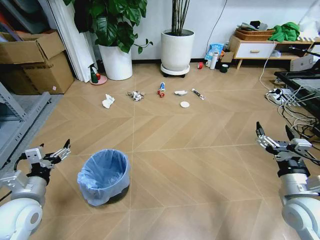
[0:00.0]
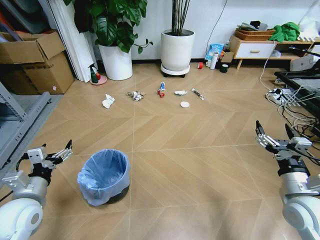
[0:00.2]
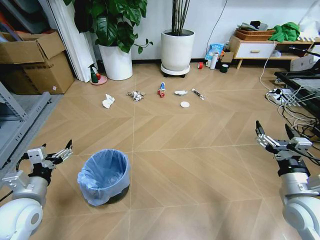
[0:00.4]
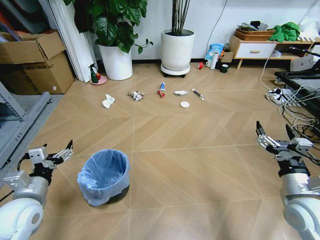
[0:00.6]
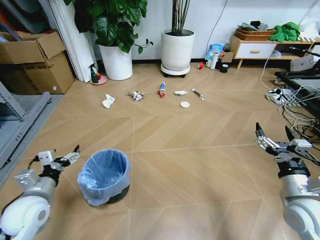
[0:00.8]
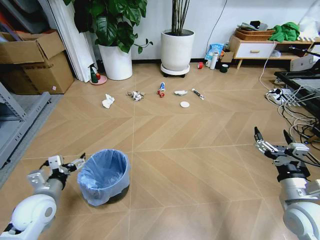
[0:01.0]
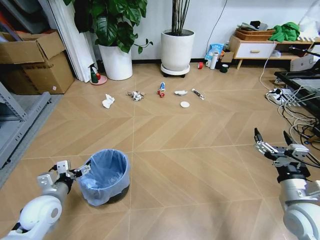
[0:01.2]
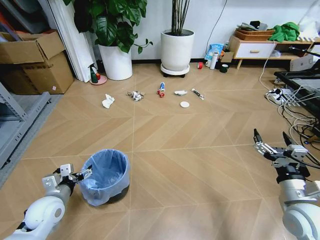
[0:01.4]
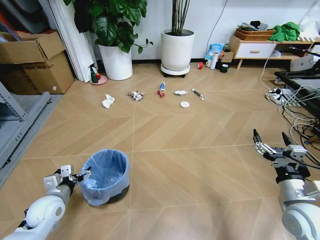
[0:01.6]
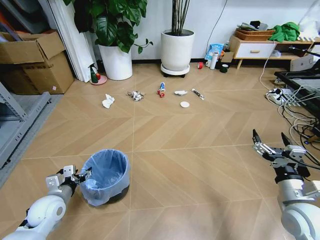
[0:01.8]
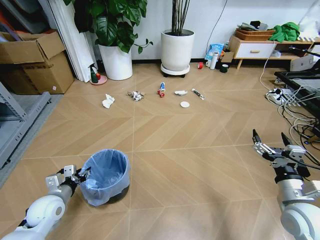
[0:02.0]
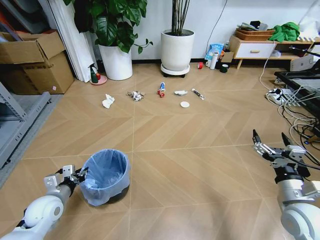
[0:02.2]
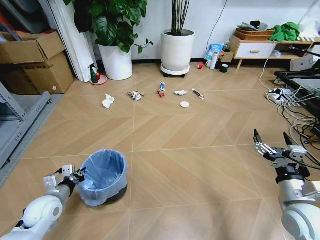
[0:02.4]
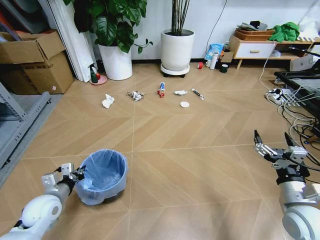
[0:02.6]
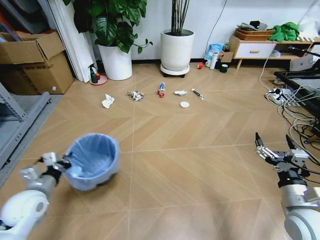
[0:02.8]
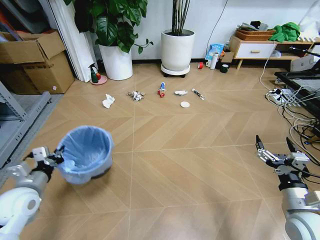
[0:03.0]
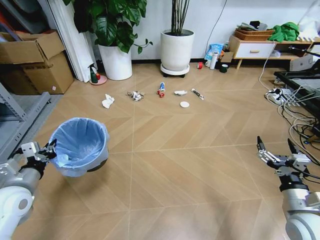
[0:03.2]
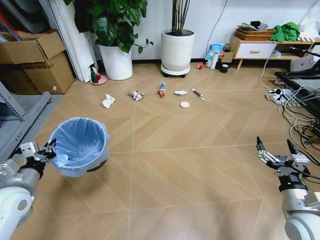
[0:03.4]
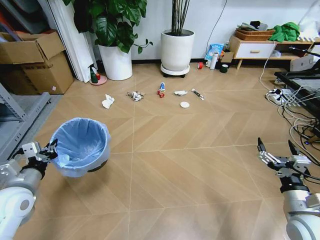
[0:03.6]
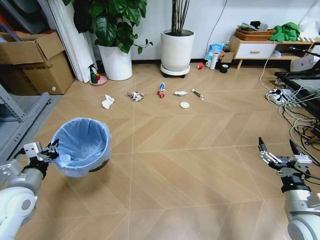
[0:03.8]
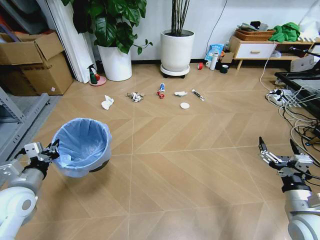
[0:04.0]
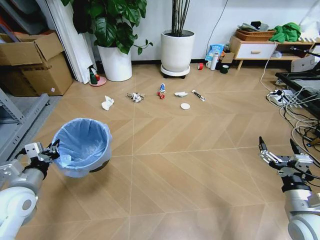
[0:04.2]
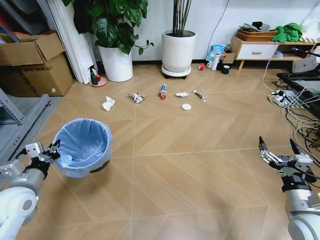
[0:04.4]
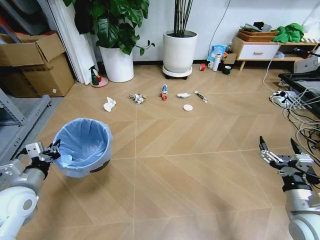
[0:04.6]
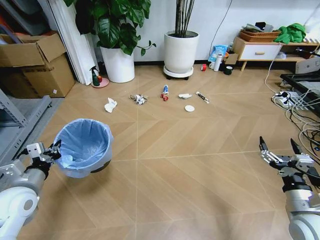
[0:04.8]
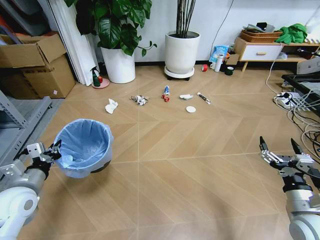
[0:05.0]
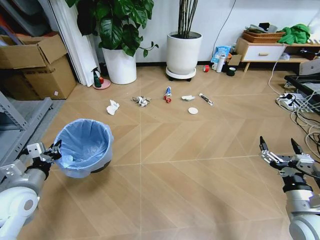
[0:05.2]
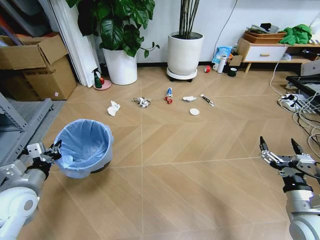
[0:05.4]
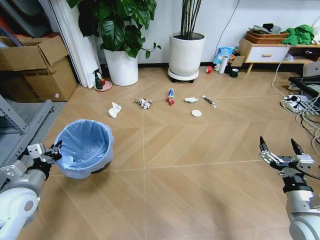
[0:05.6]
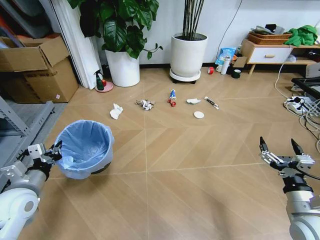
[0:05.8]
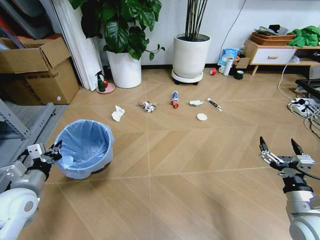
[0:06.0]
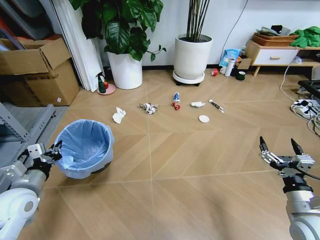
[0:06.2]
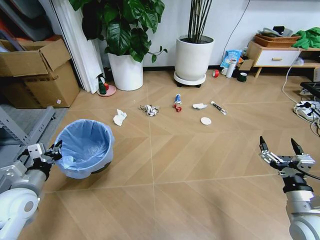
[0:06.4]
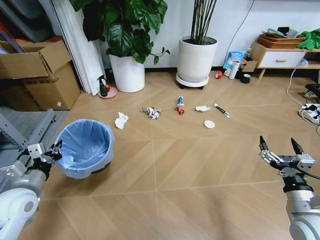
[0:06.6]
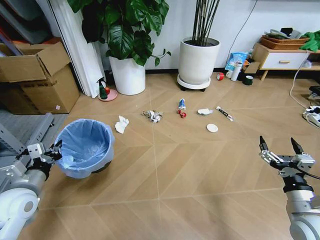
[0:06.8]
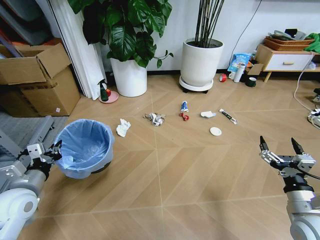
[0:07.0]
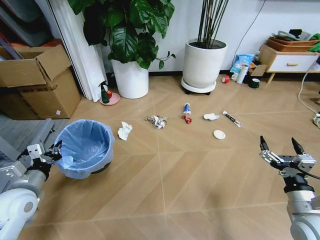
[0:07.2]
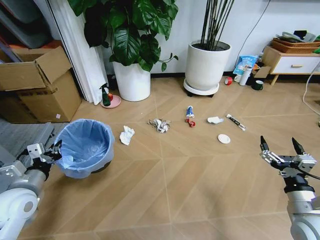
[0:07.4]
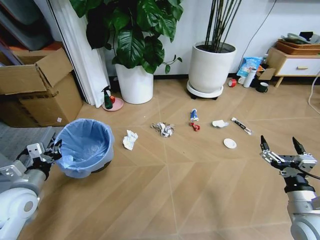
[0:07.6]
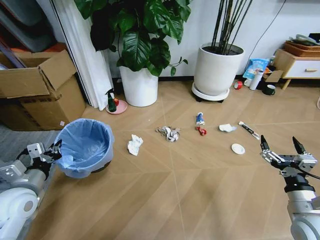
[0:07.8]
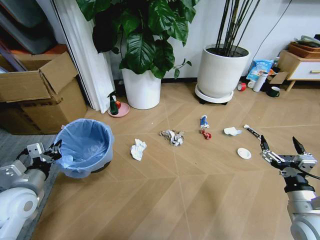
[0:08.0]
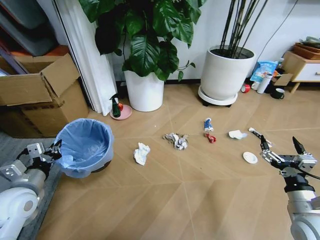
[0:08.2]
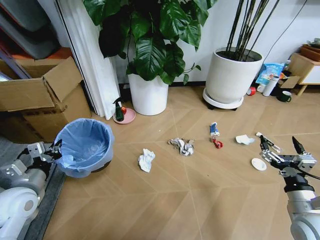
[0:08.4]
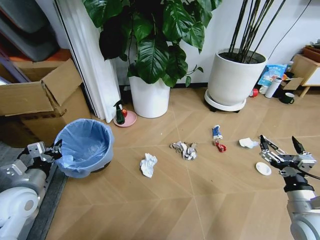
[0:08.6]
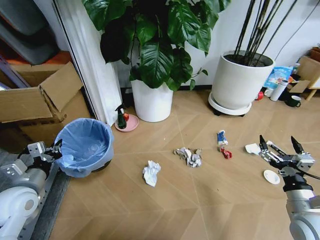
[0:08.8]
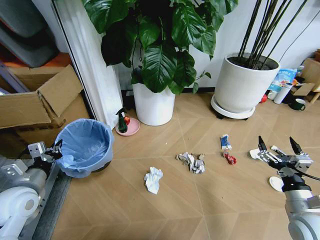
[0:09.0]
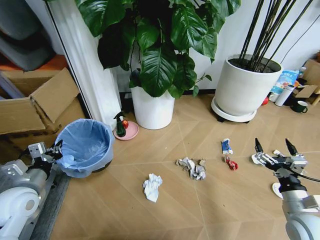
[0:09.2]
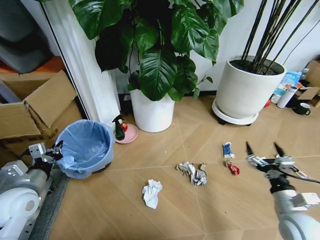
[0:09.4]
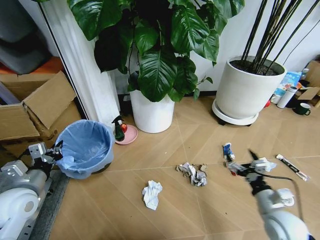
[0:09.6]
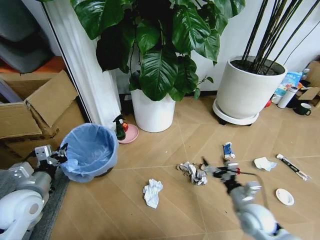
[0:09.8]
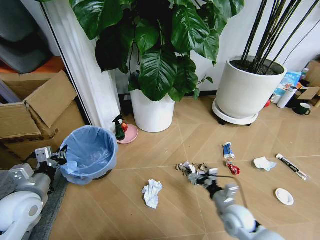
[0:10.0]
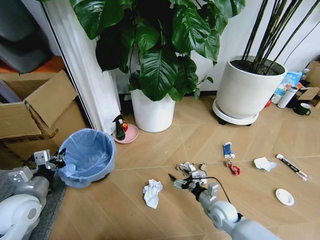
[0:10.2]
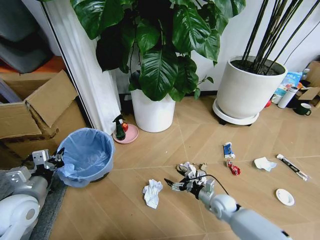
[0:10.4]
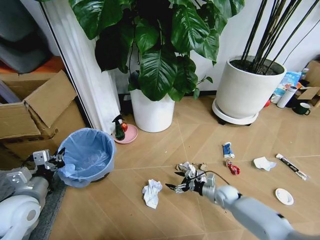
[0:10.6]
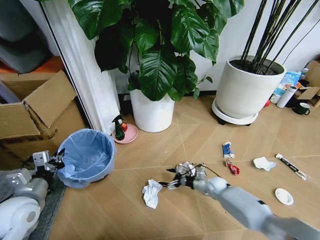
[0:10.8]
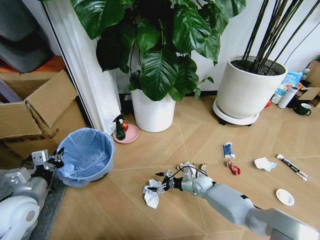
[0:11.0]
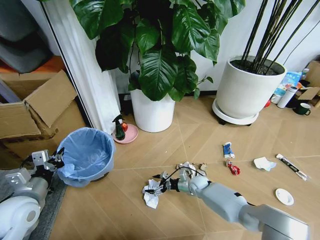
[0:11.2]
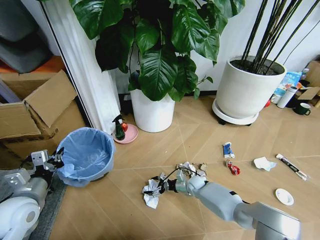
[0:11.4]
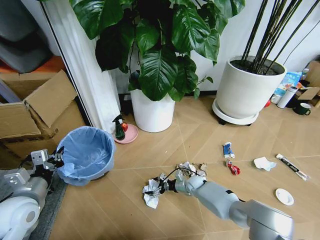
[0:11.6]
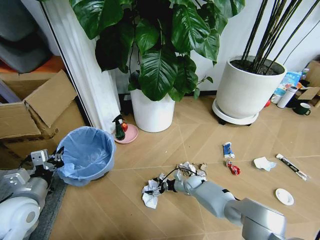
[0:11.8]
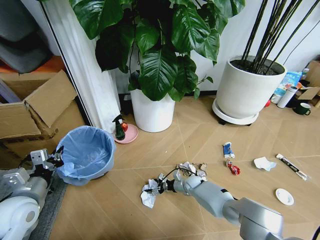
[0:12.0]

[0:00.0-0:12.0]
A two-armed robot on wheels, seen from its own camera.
Task of the whole recording: Pick up the trash bin and place the garbage on the floor into it.
0:01.6 to 0:03.0: The left gripper heads upward, covering some 10 cm, and closes up.
0:03.0 to 0:04.4: The grippers move only a little.
0:09.0 to 0:10.4: The right gripper travels downward, to the left and forward by roughly 25 cm.
0:10.4 to 0:12.0: The right gripper is displaced forward, to the left and downward by about 15 cm.

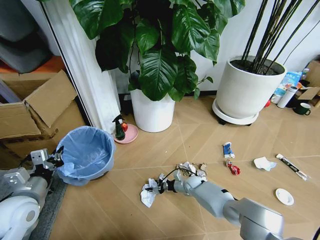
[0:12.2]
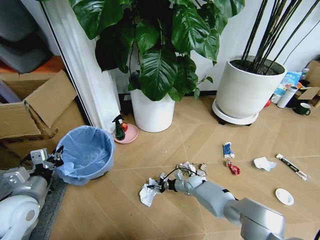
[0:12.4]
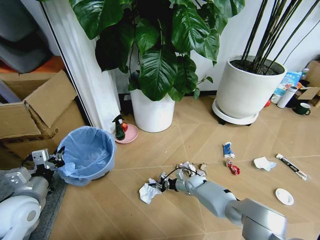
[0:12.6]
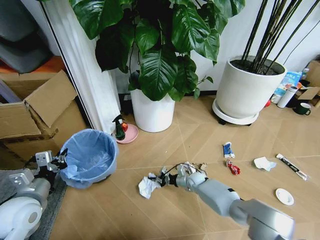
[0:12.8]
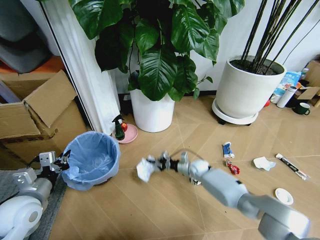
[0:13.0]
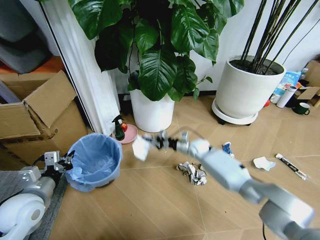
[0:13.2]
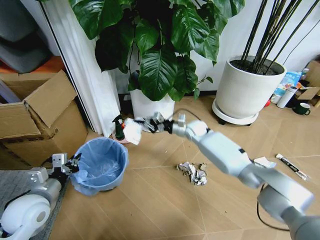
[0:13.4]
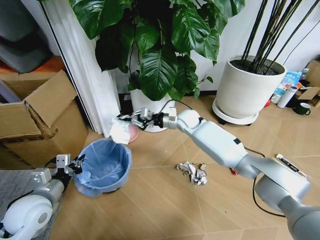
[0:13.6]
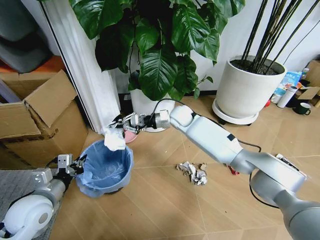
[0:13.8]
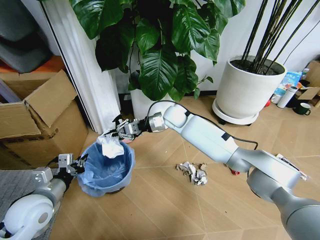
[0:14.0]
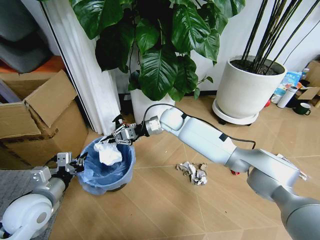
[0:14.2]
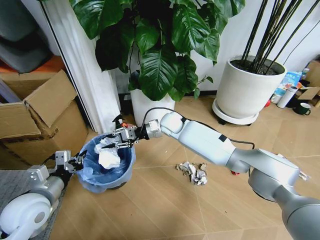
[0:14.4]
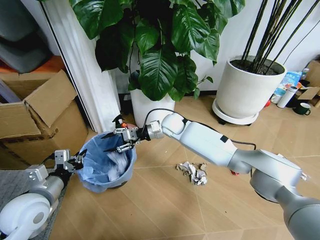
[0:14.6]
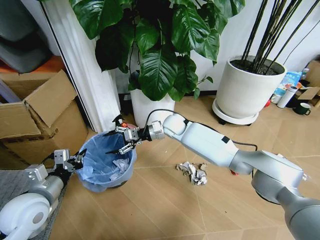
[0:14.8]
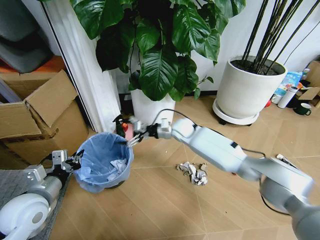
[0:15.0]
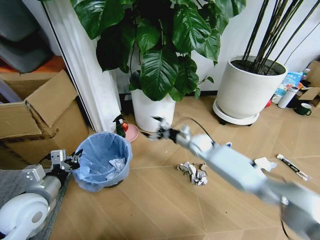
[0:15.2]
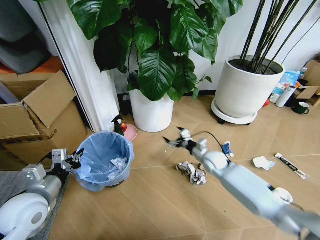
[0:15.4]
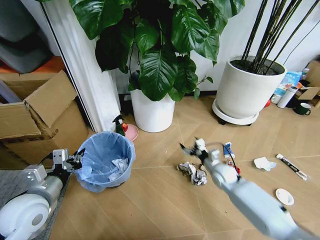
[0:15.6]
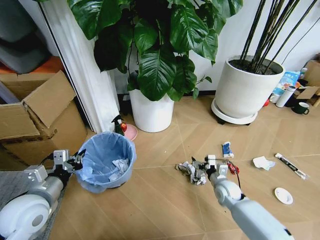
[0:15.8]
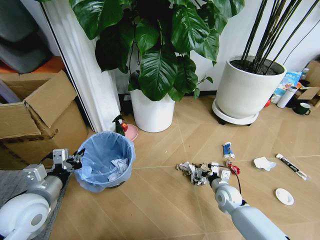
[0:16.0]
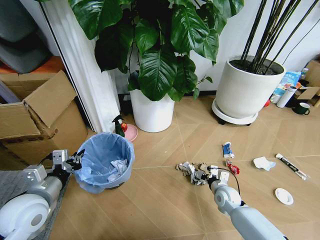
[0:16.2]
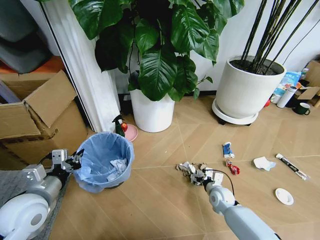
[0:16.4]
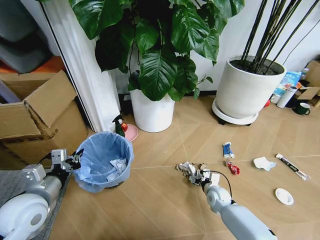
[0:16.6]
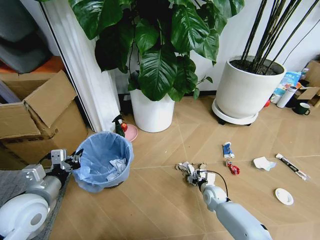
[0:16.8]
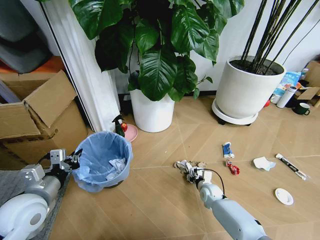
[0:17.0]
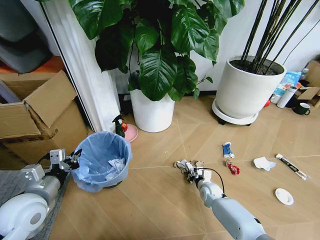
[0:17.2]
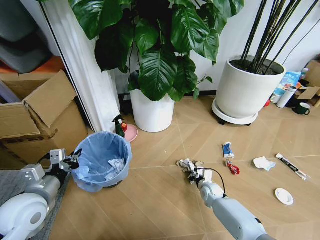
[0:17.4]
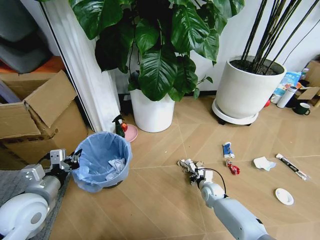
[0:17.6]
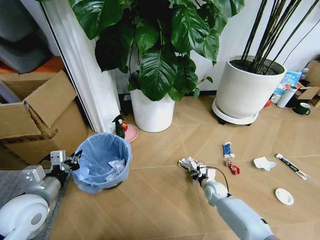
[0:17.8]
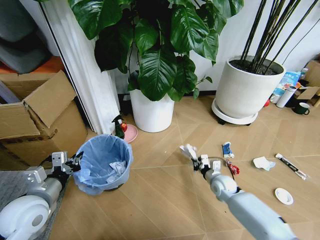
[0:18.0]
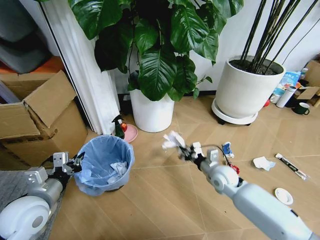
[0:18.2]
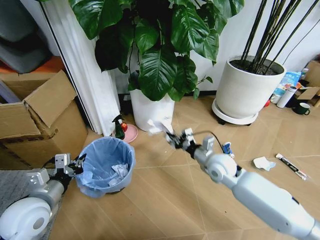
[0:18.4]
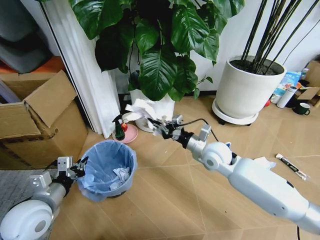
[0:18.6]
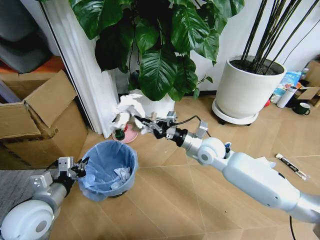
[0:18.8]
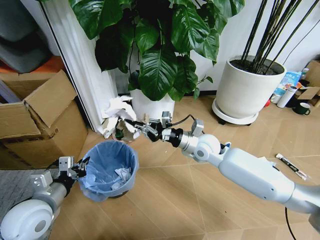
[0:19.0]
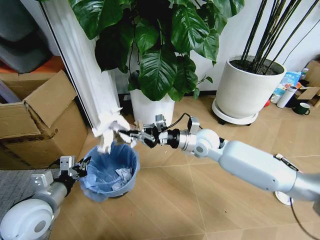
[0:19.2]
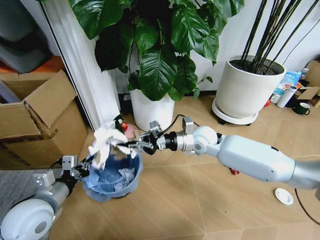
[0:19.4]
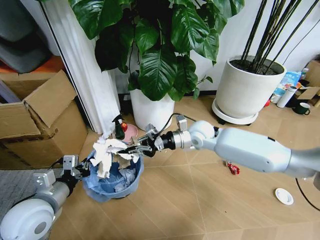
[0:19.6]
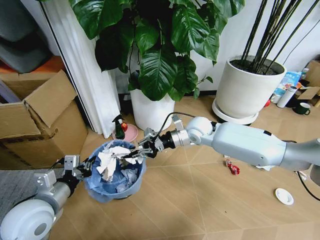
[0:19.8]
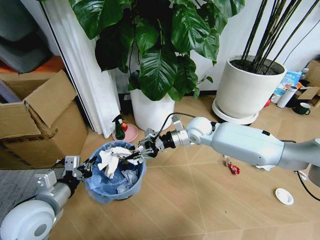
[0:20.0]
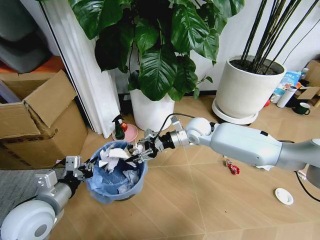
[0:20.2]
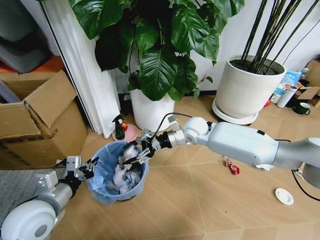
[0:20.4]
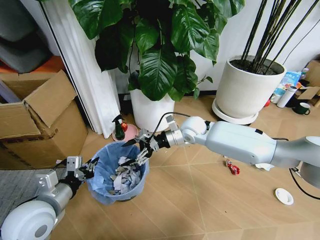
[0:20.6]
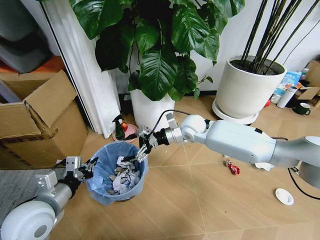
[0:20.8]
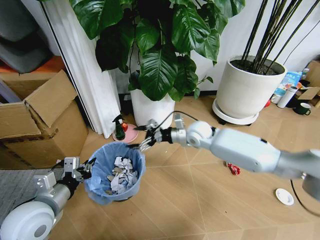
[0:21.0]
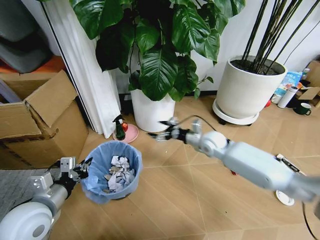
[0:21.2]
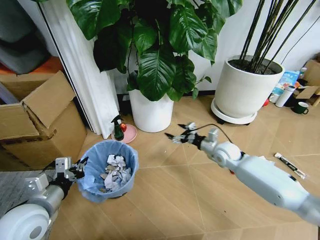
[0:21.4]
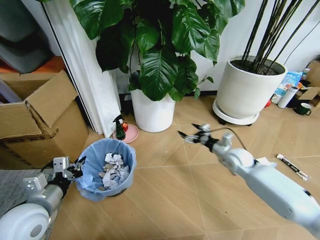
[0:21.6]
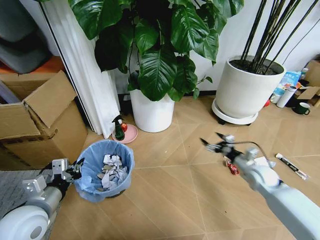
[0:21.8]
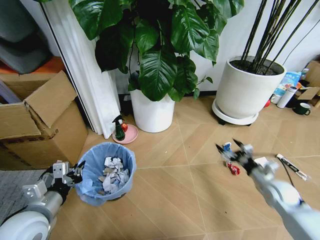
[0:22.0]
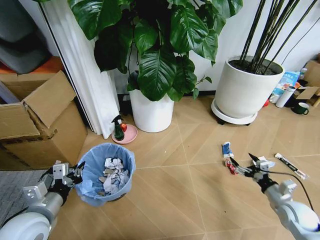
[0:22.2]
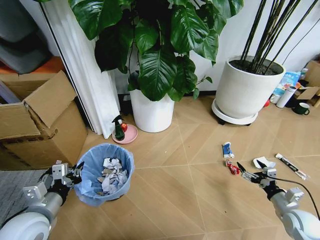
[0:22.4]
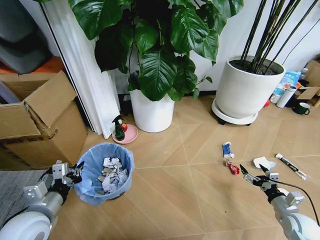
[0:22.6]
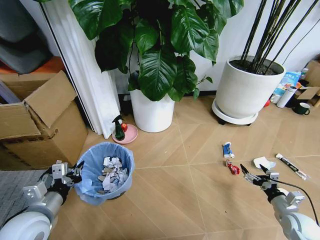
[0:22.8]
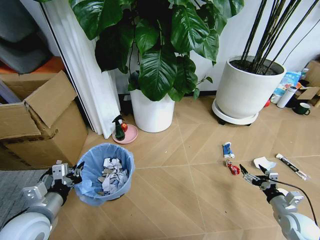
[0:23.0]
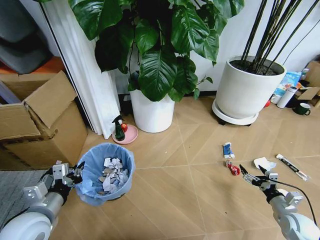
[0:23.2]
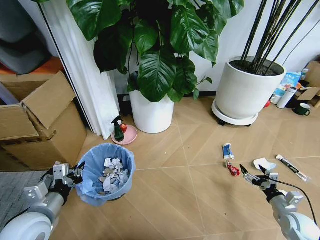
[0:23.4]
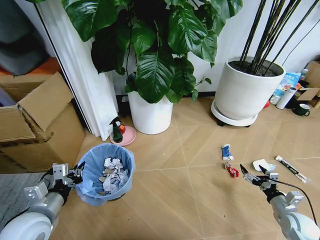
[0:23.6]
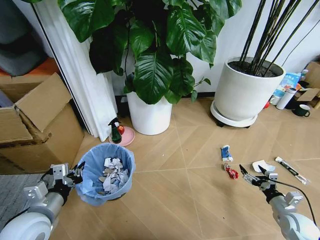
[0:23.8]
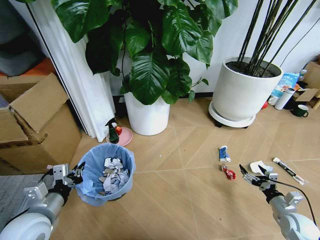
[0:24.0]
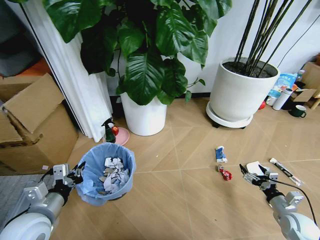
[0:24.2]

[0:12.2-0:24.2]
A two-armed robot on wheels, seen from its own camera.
Task of the whole recording: Pick up the trash bin and place the garbage on the floor into it.
0:12.2 to 0:13.8: The right gripper heads upward, covering some 35 cm, and closes.
0:13.8 to 0:15.2: The right gripper goes approximately 15 cm downward, to the right and backward, and opens.
0:15.2 to 0:16.6: The right gripper goes roughly 20 cm downward and backward.
0:16.6 to 0:18.2: The right gripper travels upward by about 15 cm, and closes up.
0:18.2 to 0:19.8: The right gripper is displaced upward, forward and to the left by about 25 cm.
0:19.8 to 0:21.2: The right gripper heads downward and to the right, covering about 10 cm, and opens up.
0:21.2 to 0:22.6: The right gripper heads to the right, backward and downward, covering approximately 40 cm.
